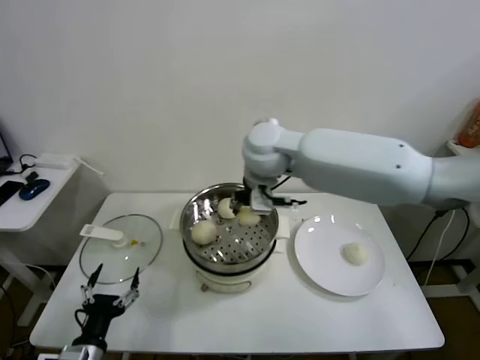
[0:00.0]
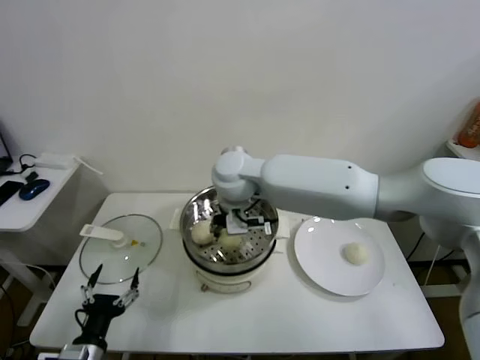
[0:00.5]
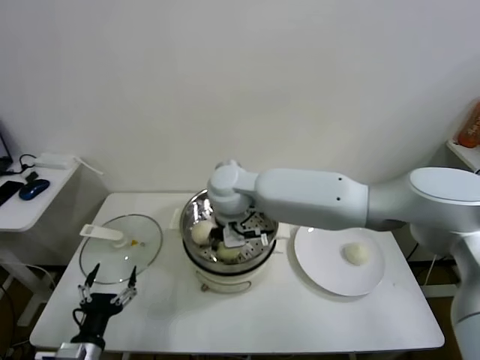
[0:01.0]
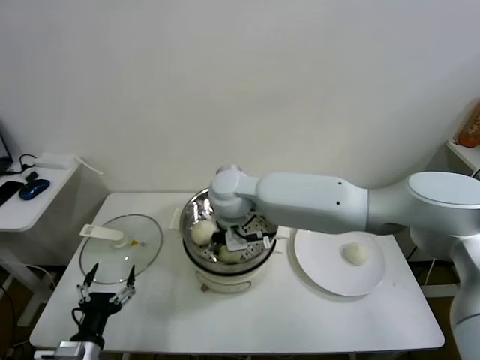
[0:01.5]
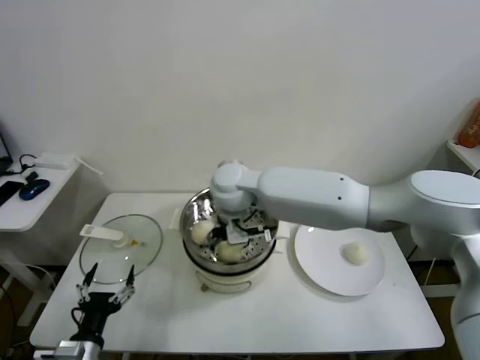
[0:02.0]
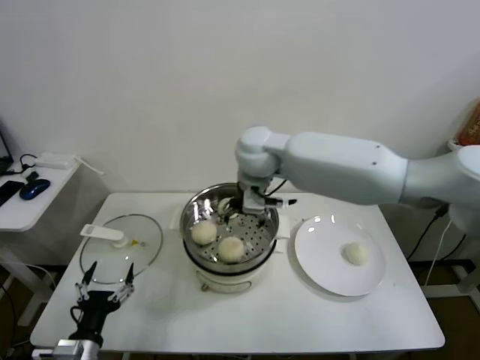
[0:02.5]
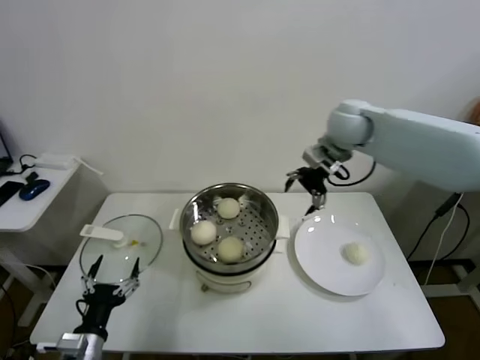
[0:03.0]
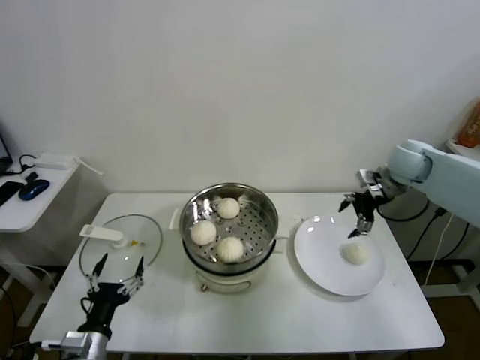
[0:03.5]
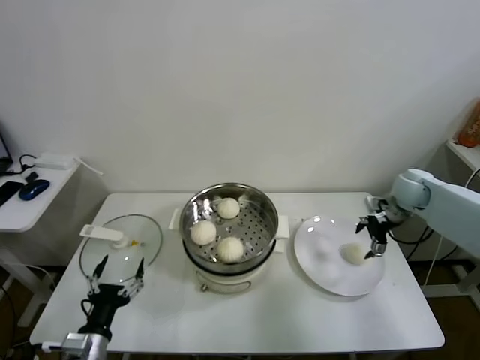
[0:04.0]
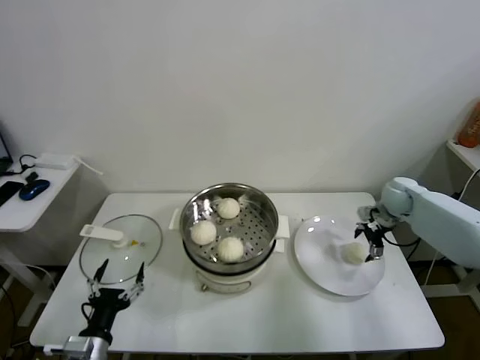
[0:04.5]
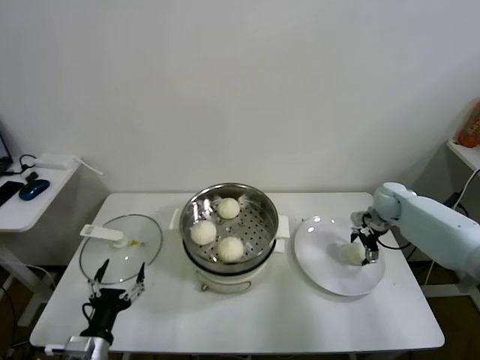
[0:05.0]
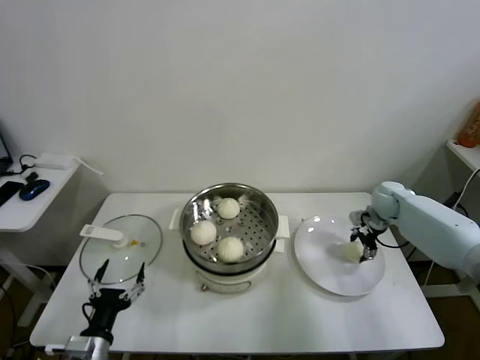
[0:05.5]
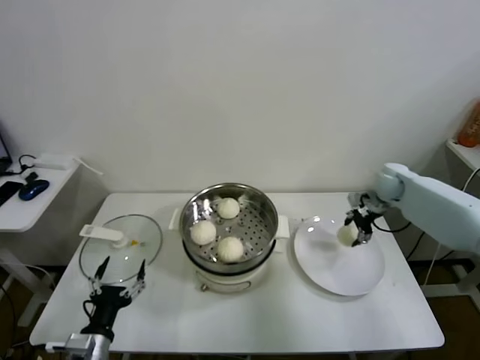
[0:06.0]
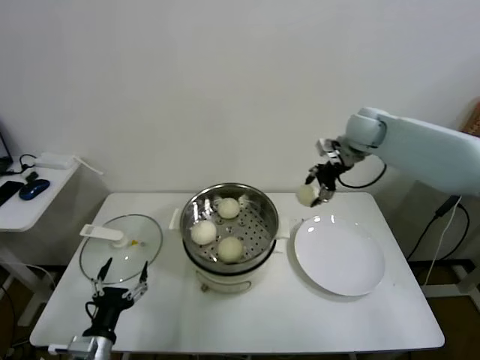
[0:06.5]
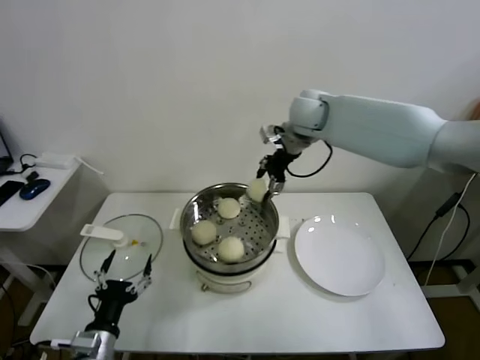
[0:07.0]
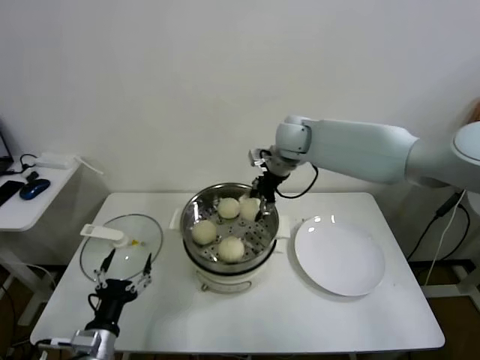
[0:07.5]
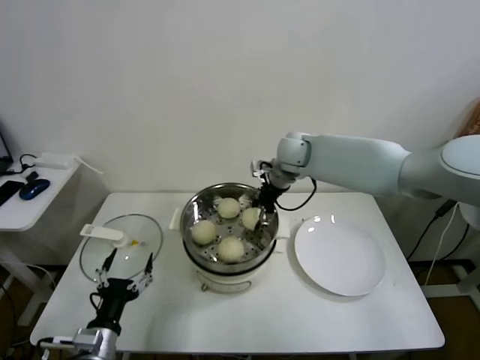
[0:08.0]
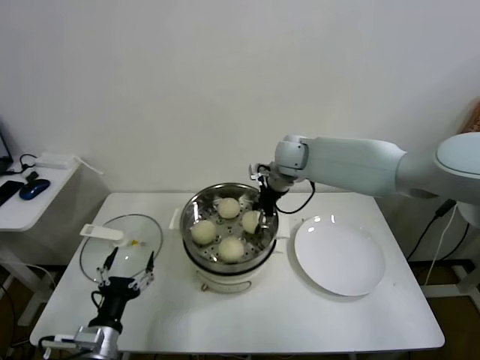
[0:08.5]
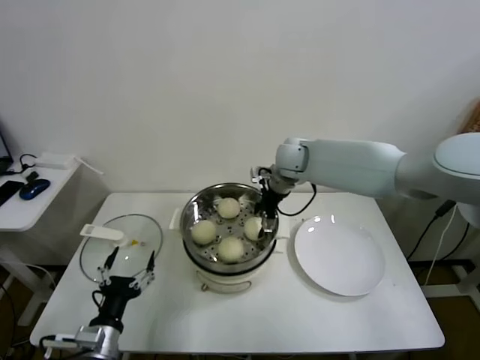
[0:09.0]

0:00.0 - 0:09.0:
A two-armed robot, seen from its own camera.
Task of the whole recording: take steamed baozi put them in steamer.
Step, 0:00.0 - 0:02.0: Place the baozi on the steamer with right gripper.
Step, 0:02.5 - 0:05.5: Grasp the baozi in the plate with right gripper.
0:00.0 - 0:02.0: The right gripper heads downward and to the left, covering about 10 cm, and opens its fingers.
0:02.0 - 0:04.5: The right gripper goes approximately 40 cm to the right.
0:04.5 - 0:07.0: The right gripper heads to the left and upward, covering some 35 cm, and closes its fingers.
0:07.0 - 0:09.0: The right gripper goes about 10 cm downward, and opens its fingers.

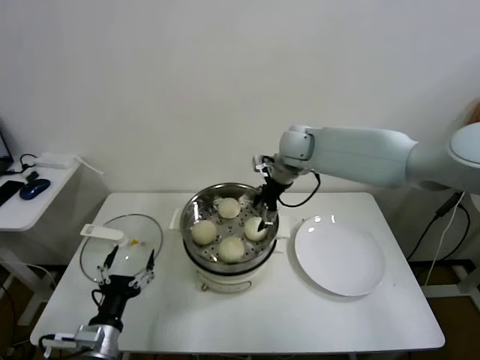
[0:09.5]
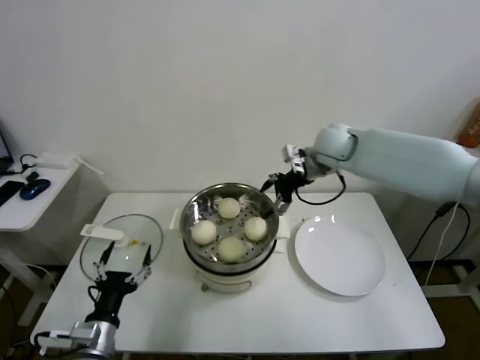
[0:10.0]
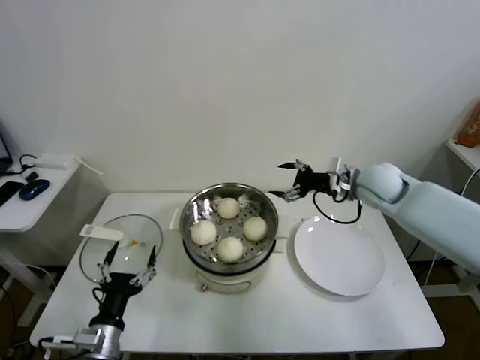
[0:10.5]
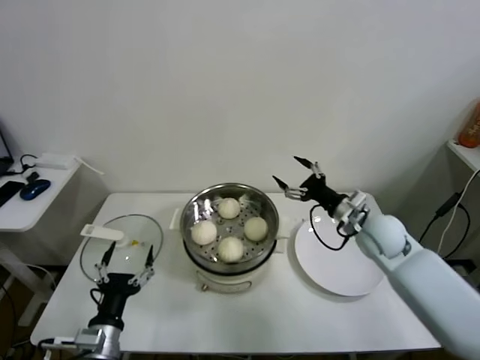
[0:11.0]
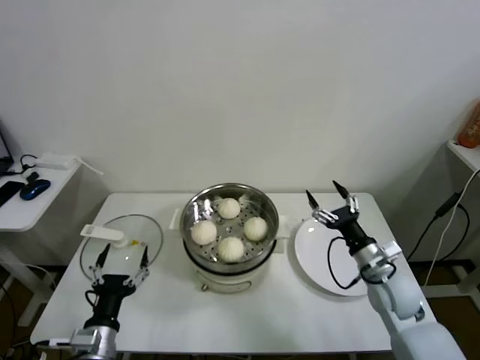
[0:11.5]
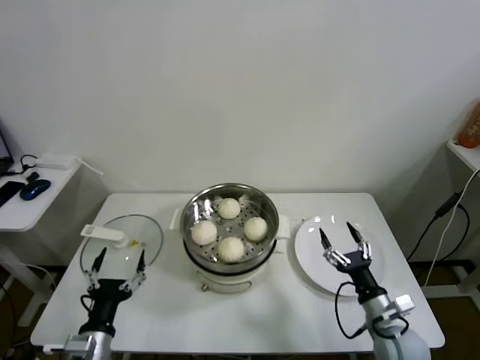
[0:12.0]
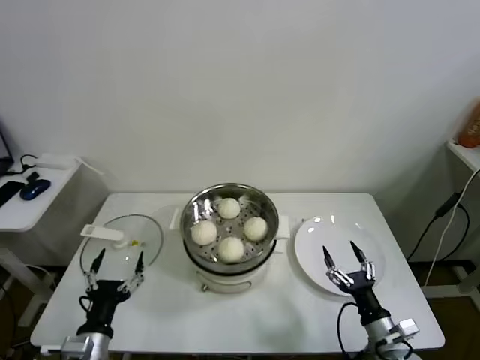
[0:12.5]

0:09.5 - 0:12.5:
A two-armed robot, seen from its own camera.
Task of the whole recording: take steamed baozi put them in steamer.
0:09.5 - 0:11.0: The right gripper goes approximately 25 cm to the right, backward and downward.
0:11.0 - 0:12.5: The right gripper goes about 30 cm backward and downward.
